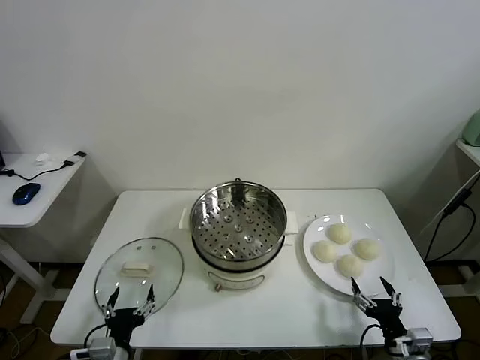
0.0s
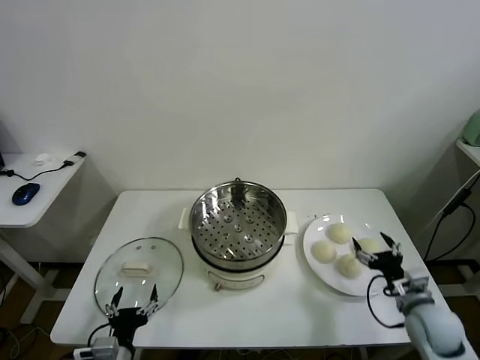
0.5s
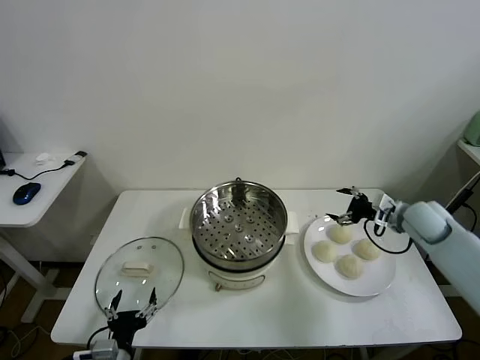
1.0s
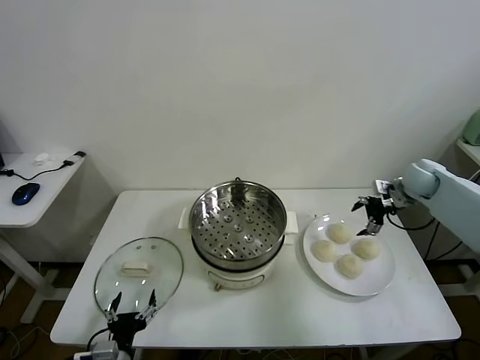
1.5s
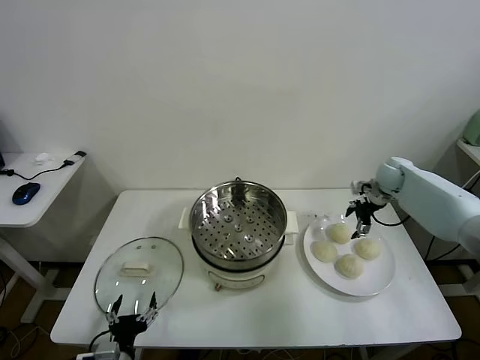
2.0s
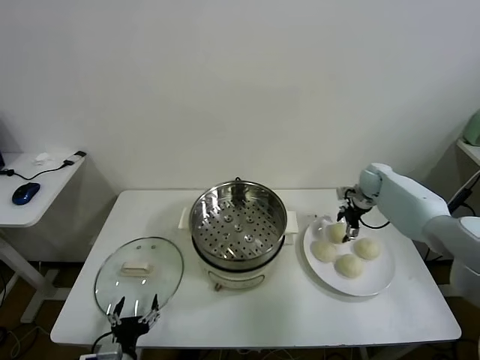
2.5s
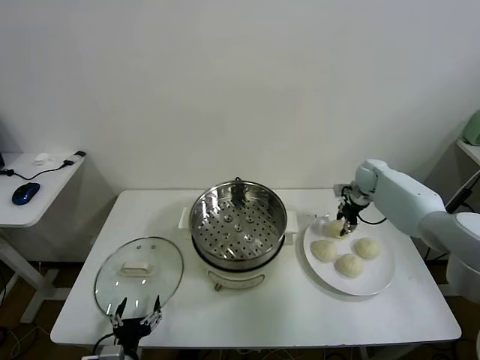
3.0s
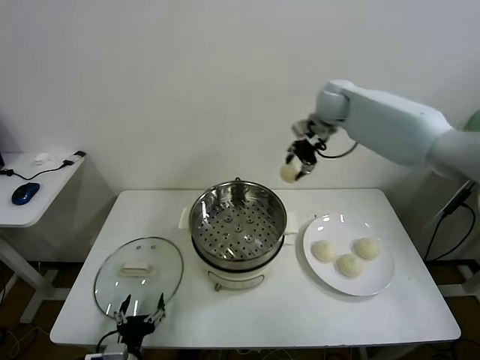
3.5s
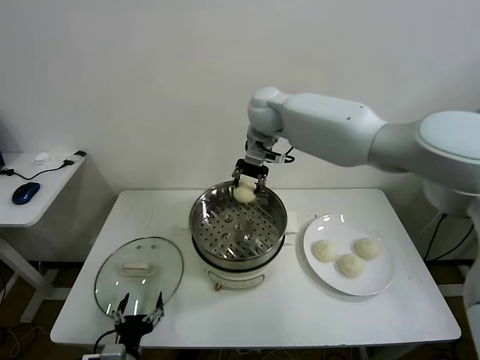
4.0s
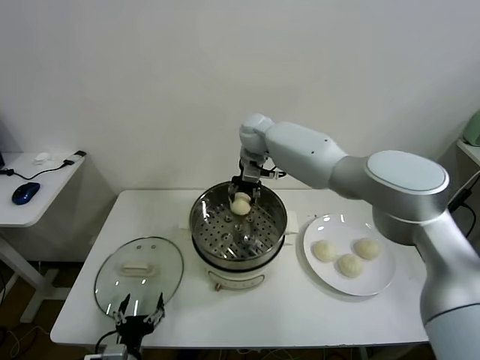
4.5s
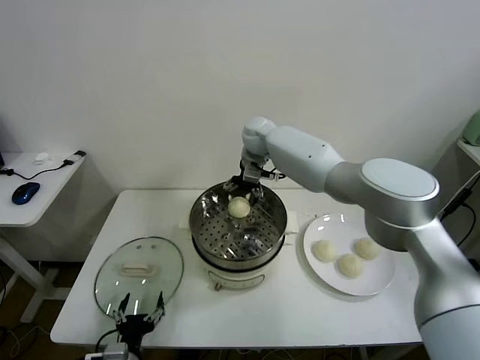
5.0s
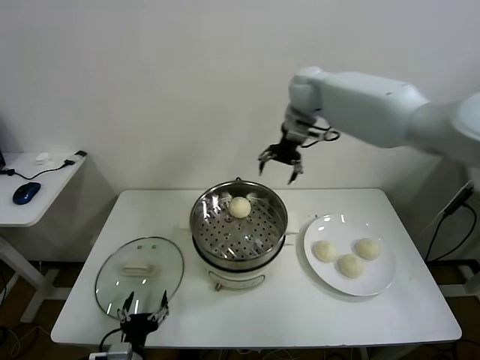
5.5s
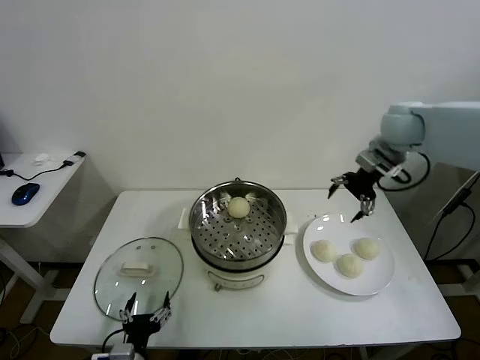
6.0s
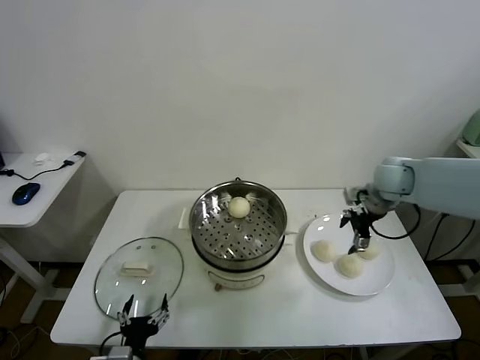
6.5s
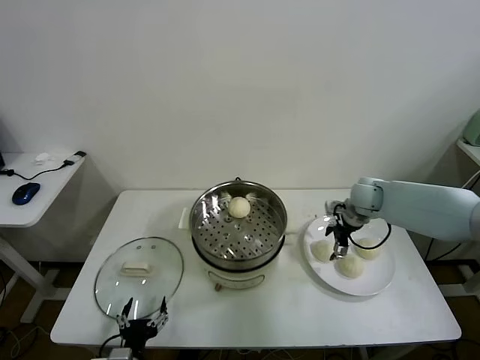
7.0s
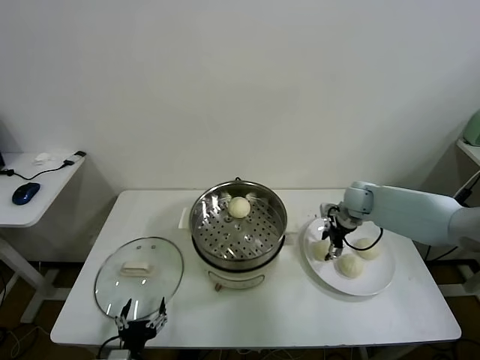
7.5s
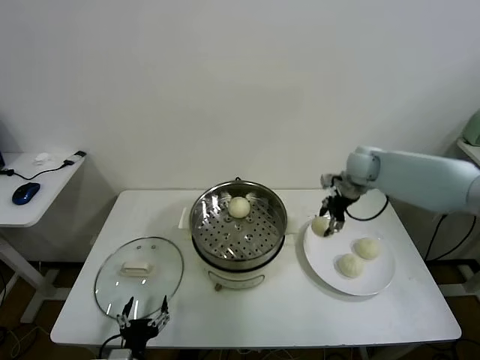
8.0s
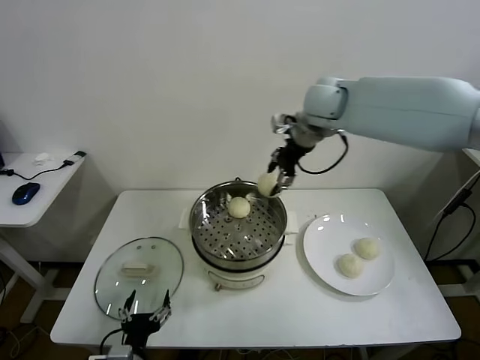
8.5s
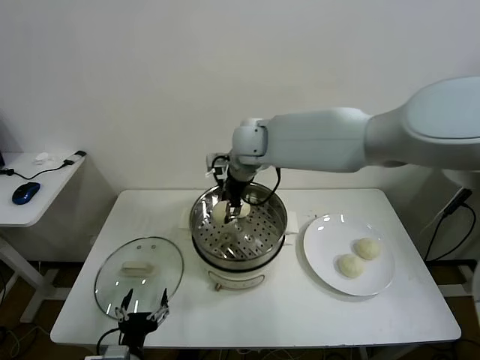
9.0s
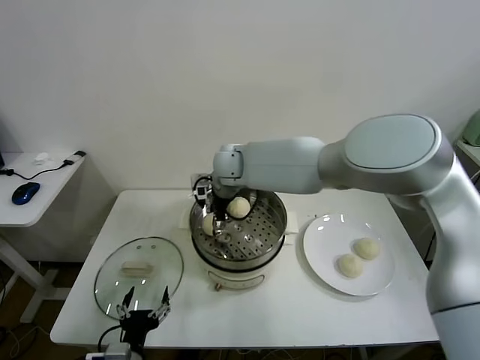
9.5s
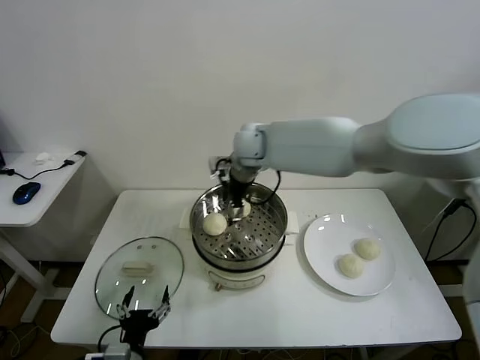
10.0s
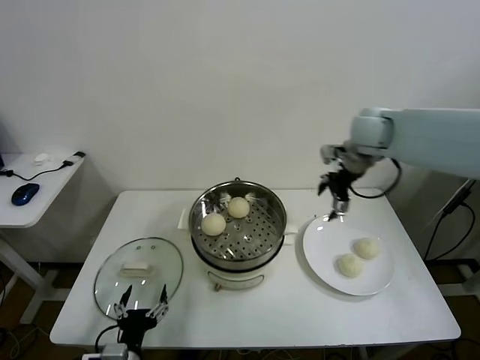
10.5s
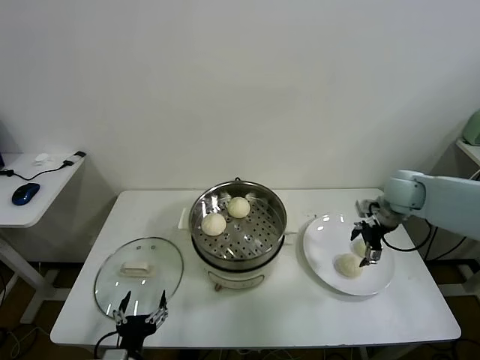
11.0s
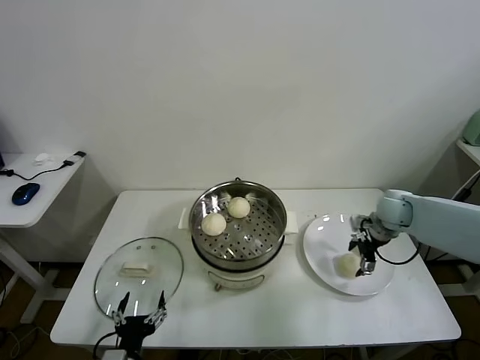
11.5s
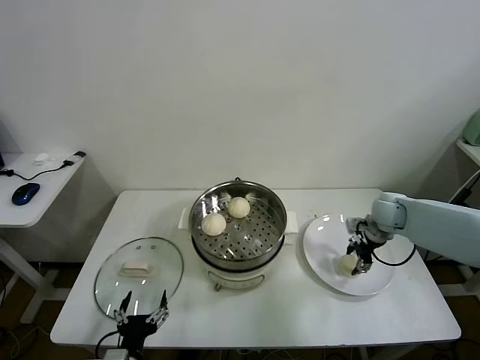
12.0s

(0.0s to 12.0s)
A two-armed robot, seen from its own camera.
Task of the whole recording: take steamed baozi put them in steamer.
Step, 0.0s - 2.5s: Grasp the baozi in the plate with right gripper.
Step, 3.0s - 4.5s: Place the baozi on the steamer with right gripper.
Step, 5.5s - 7.5s: Grasp the baozi in the plate with right gripper.
Step, 8.0s - 9.5s: Place the baozi on the steamer with right gripper.
Step, 10.0s - 12.0s: Grasp the baozi in the plate with right gripper.
2.0s - 4.0s: The right gripper goes some 40 cm to the left and upward, and closes up.
4.0s - 6.0s: The right gripper shifts about 30 cm to the right, and opens.
6.0s - 8.0s: The right gripper heads downward and forward, covering some 10 cm, and closes up.
8.0s - 10.0s: The right gripper travels to the left by some 25 cm, and opens.
10.0s - 12.0s: The right gripper heads to the right and downward, covering about 40 cm, and closes.

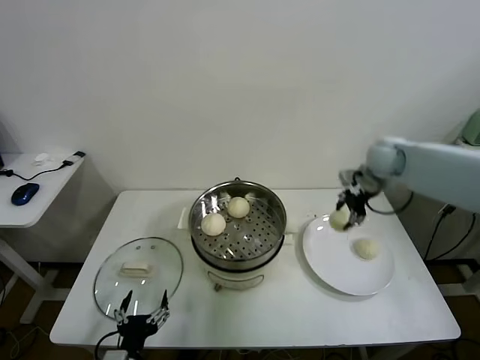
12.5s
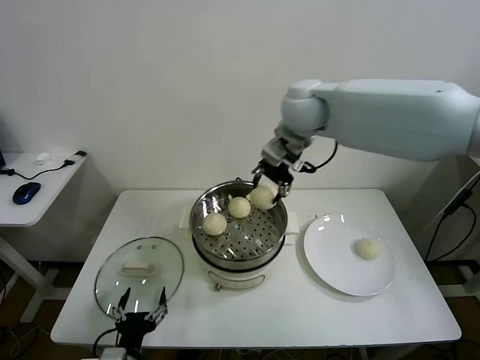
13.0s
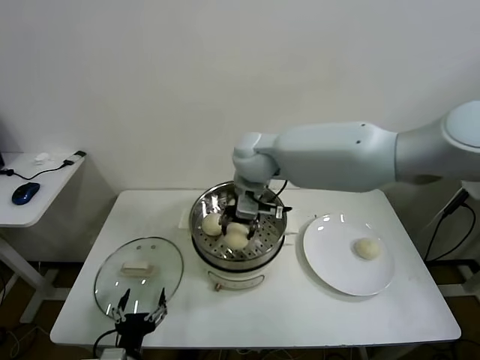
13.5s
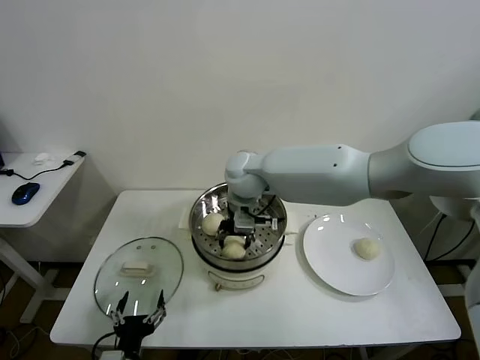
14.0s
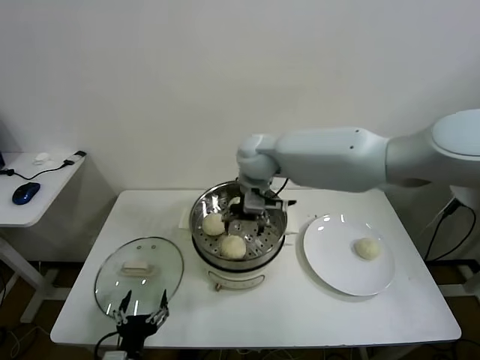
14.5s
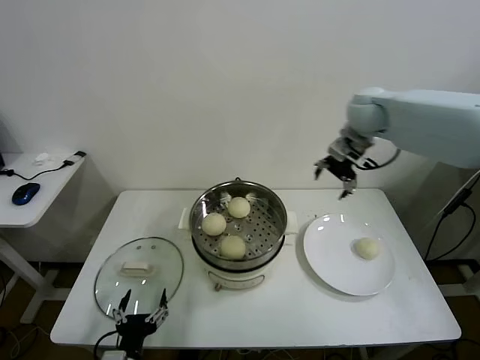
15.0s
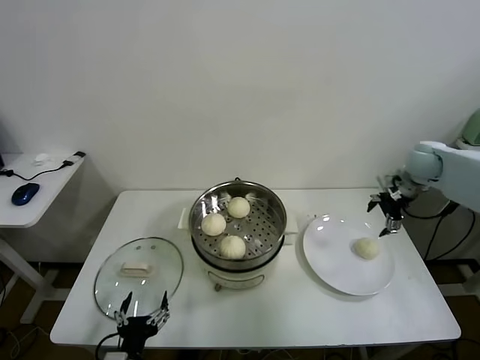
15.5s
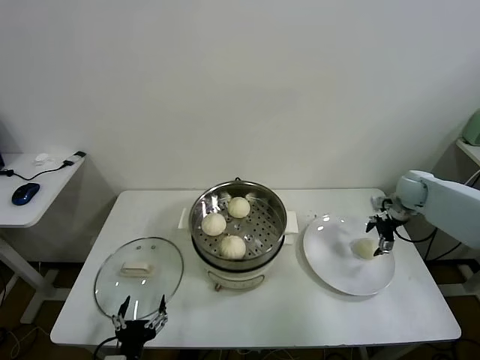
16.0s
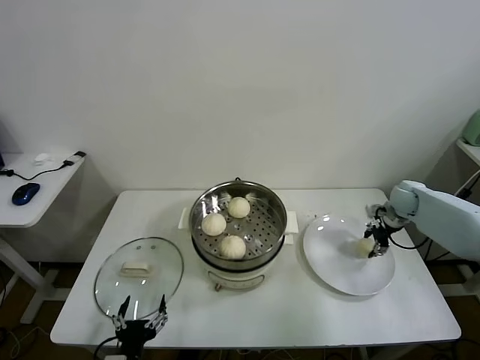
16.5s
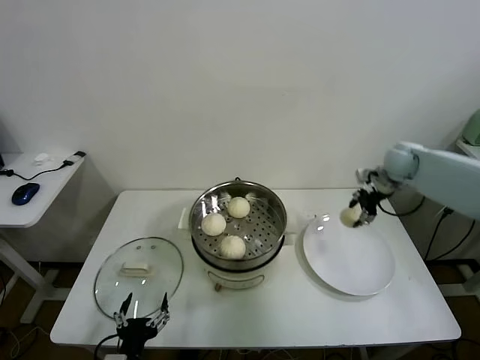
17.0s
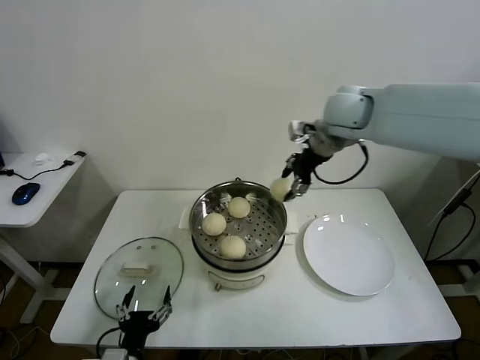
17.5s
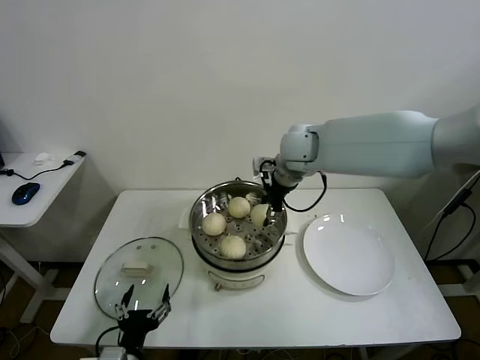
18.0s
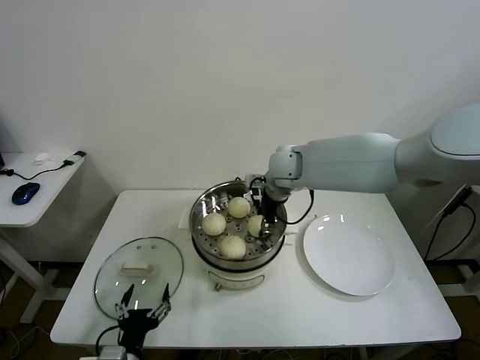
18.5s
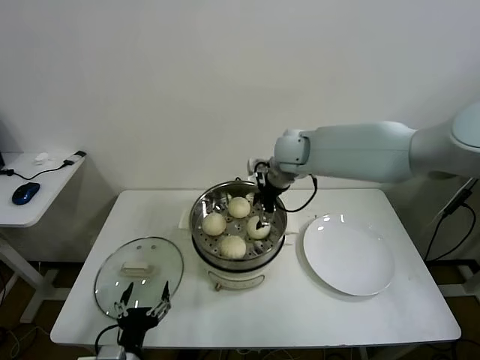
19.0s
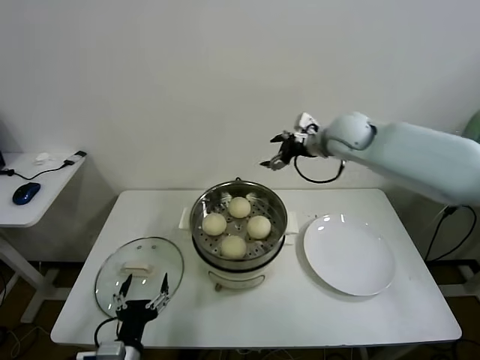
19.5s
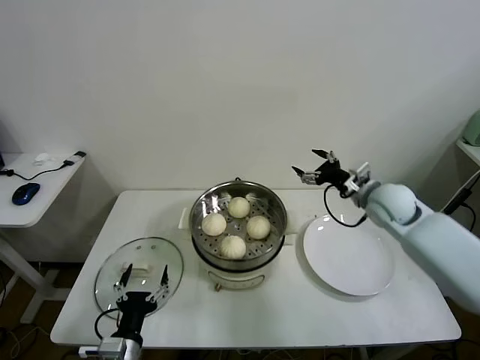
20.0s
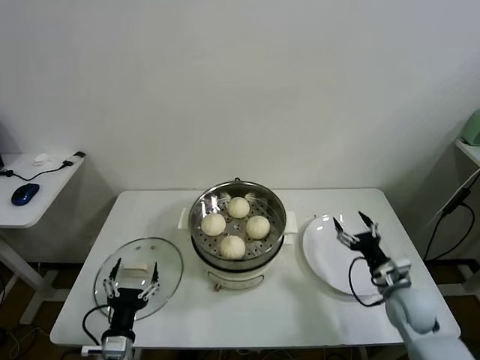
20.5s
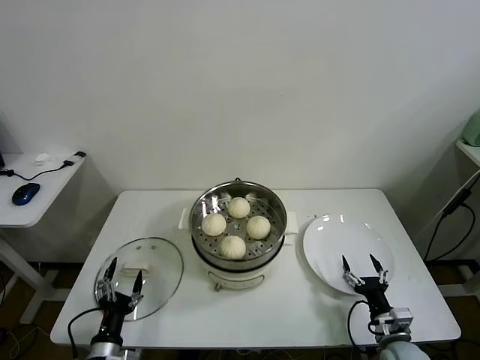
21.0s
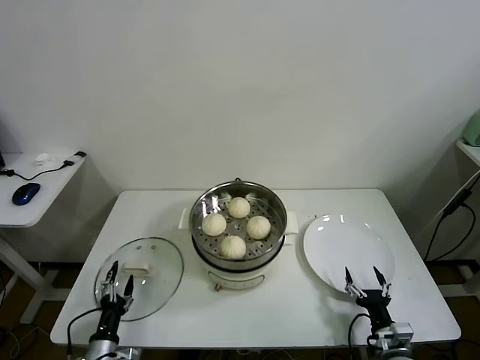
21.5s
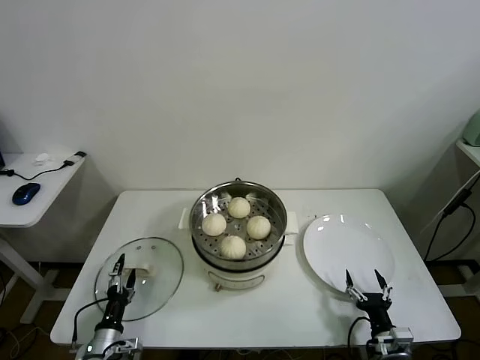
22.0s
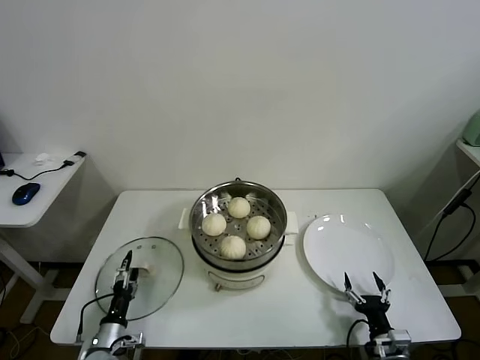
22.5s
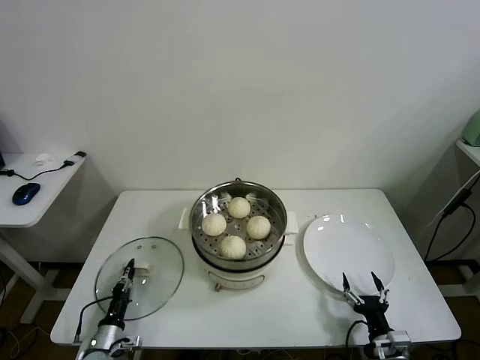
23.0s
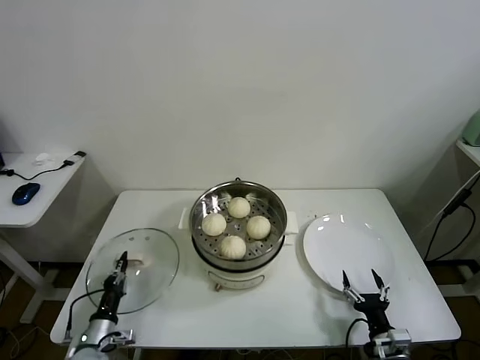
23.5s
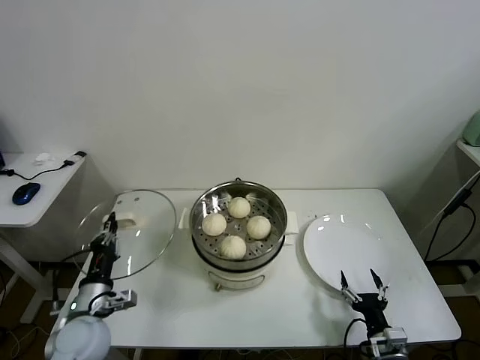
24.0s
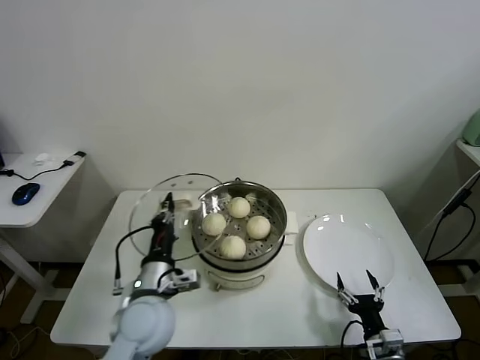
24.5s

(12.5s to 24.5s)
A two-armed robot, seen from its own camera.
Task of the whole recording: take steamed baozi put them in steamer.
Step, 12.5s - 14.0s: Place the baozi on the steamer with right gripper.
Step, 14.5s - 16.5s: Grasp the baozi in the plate with right gripper.
Step, 17.0s - 18.5s: Place the baozi on the steamer with right gripper.
Step, 19.0s - 23.0s: Grasp the pot lid with left gripper.
12.5s - 14.5s: The right gripper travels to the left by about 30 cm, and opens up.
14.5s - 16.5s: The right gripper travels to the right and downward by approximately 50 cm, and closes its fingers.
16.5s - 18.5s: The right gripper travels to the left by roughly 35 cm.
18.5s - 20.5s: The right gripper is displaced to the right, downward and backward by some 40 cm, and opens.
20.5s - 22.5s: The right gripper travels backward and downward by some 15 cm; the left gripper heads downward, to the left and forward, covering about 15 cm.
22.5s - 24.5s: The left gripper heads upward and to the right, covering roughly 25 cm, and closes its fingers.

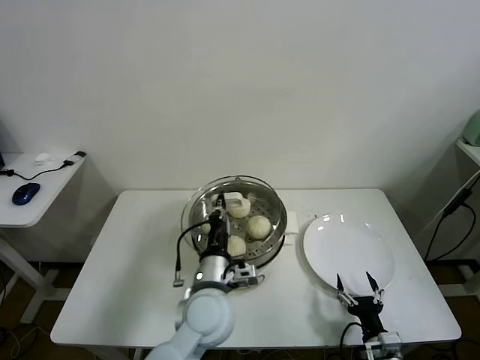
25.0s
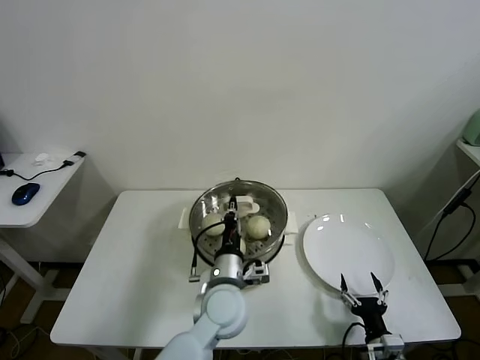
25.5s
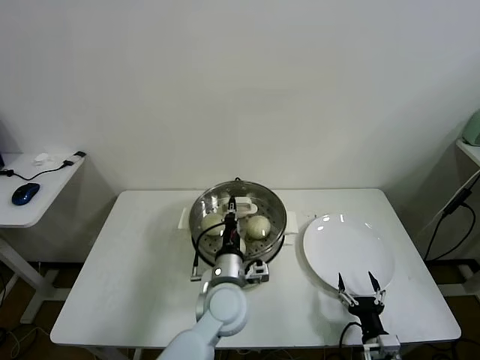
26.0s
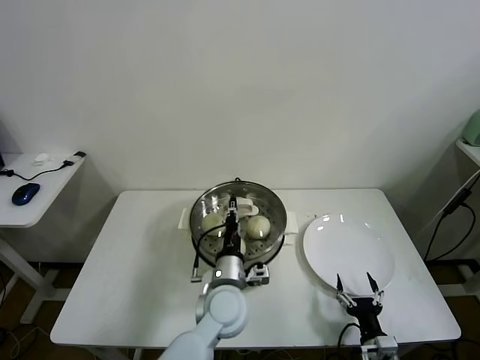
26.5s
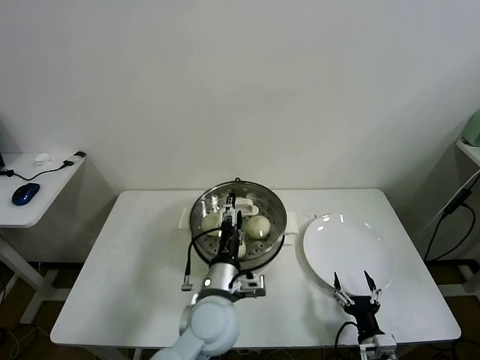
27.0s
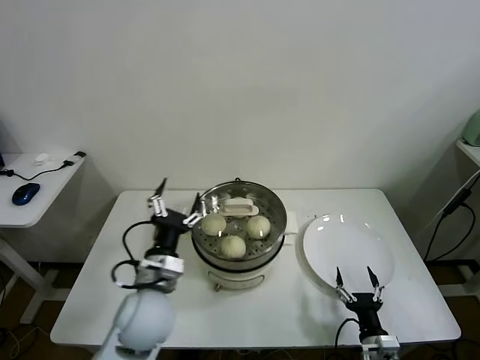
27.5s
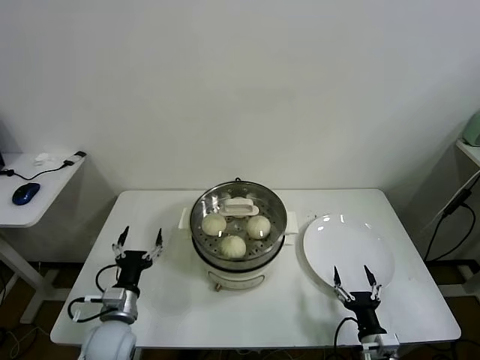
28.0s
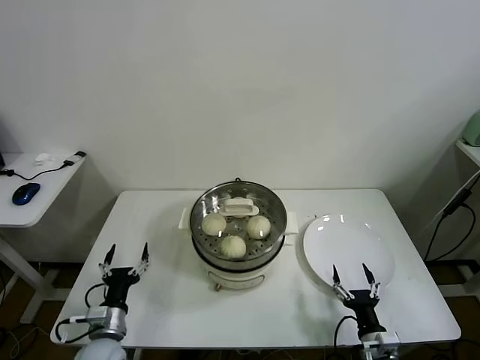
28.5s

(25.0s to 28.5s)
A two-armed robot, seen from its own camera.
Task of the whole recording: take steamed baozi put them in steamer.
25.0s - 27.0s: The left gripper opens up.
27.0s - 28.5s: The left gripper moves to the left and downward, roughly 30 cm.
